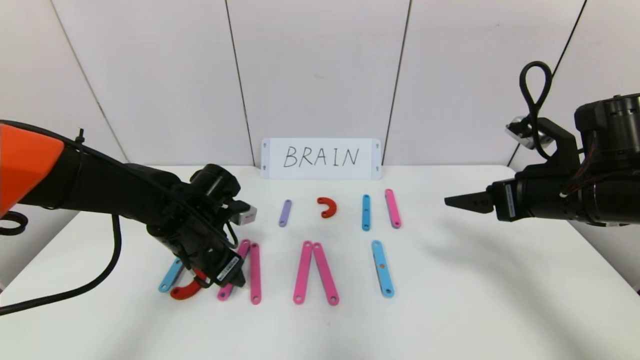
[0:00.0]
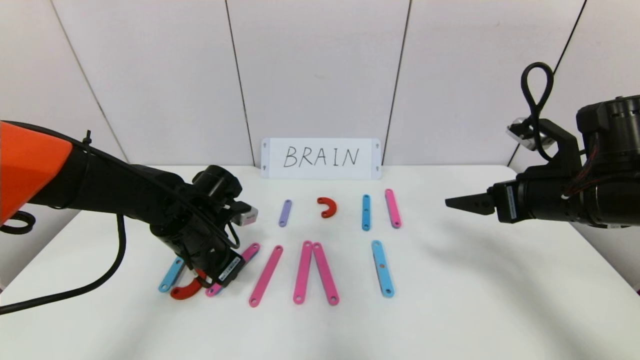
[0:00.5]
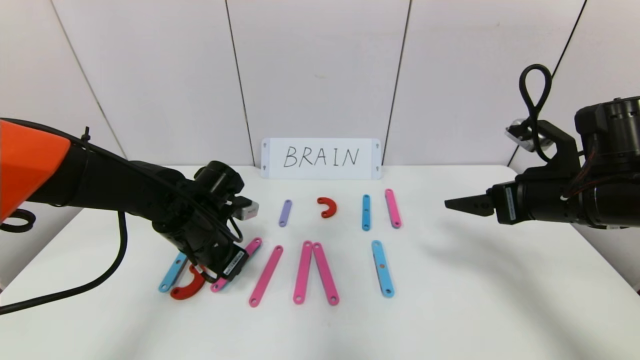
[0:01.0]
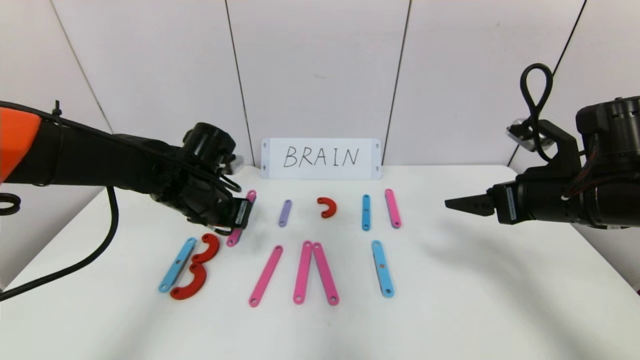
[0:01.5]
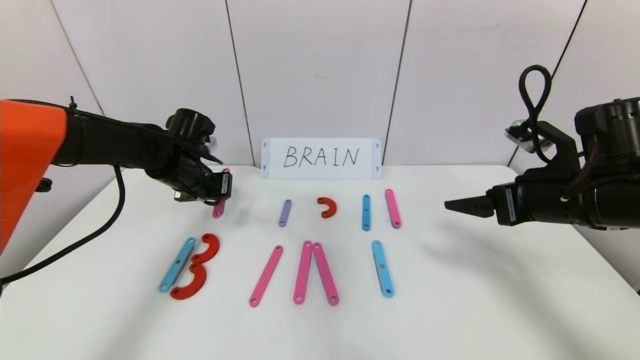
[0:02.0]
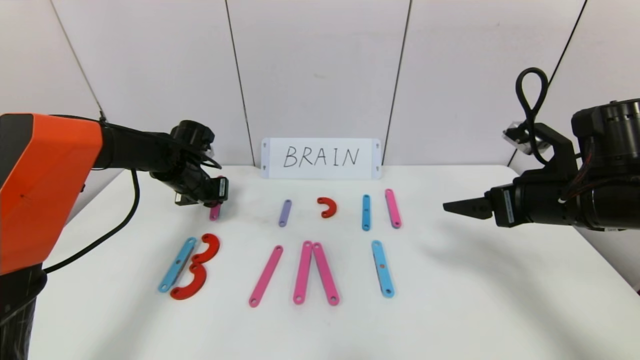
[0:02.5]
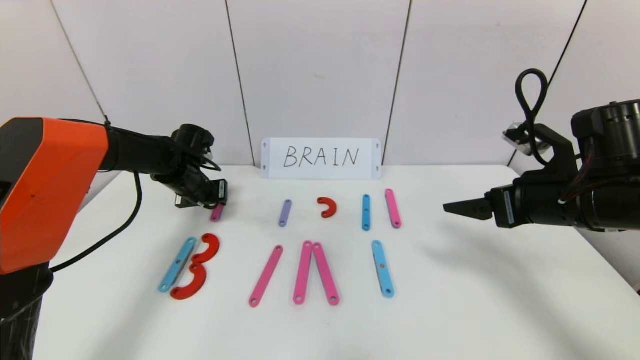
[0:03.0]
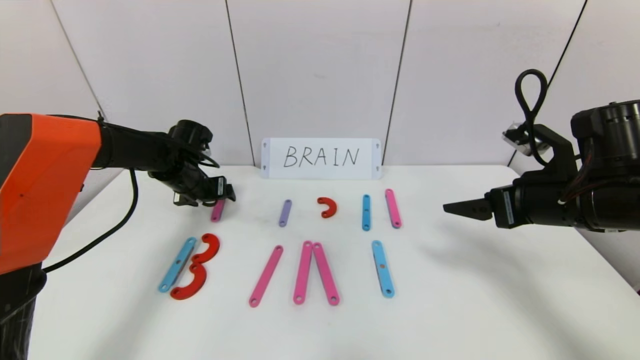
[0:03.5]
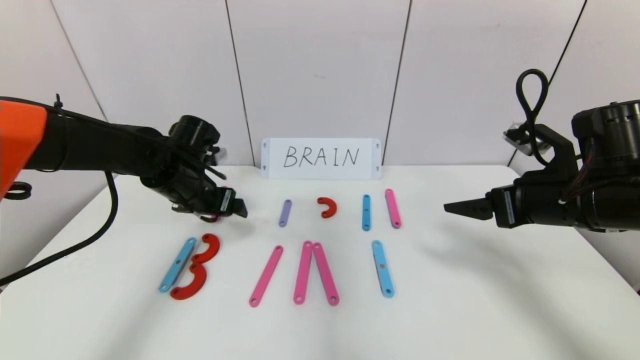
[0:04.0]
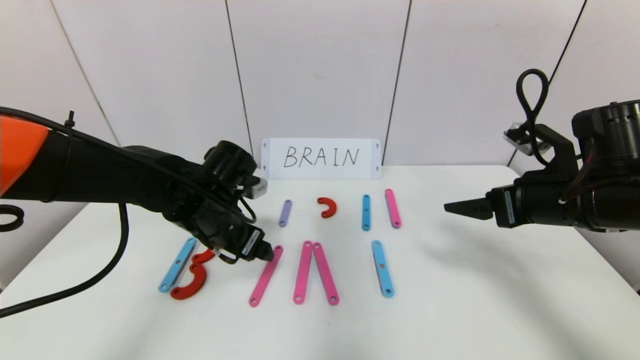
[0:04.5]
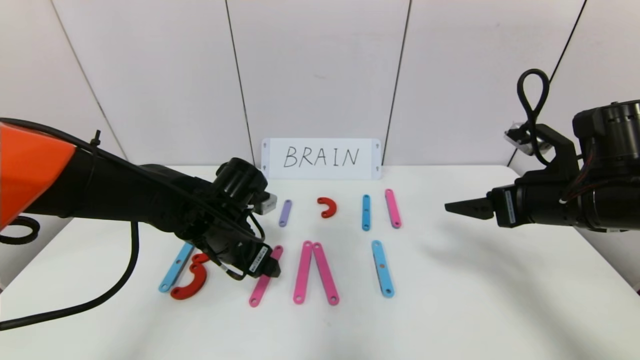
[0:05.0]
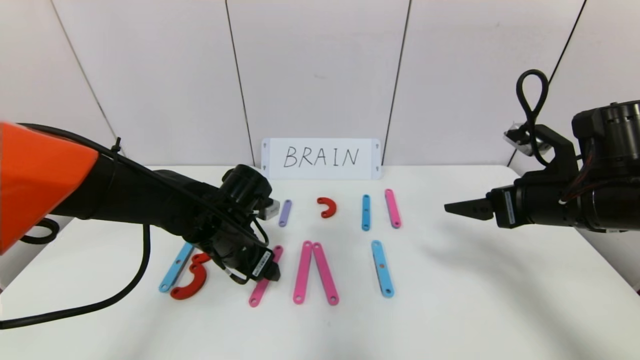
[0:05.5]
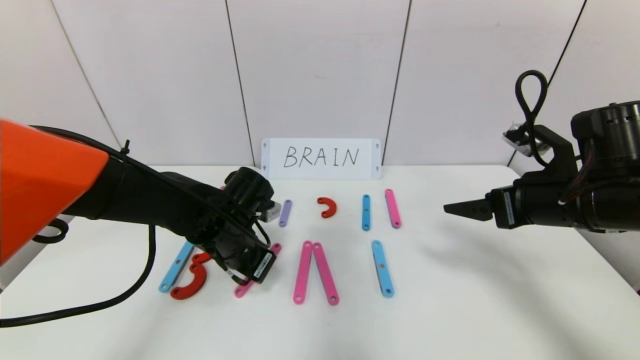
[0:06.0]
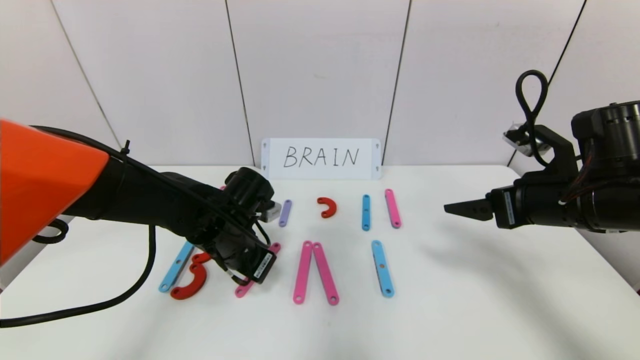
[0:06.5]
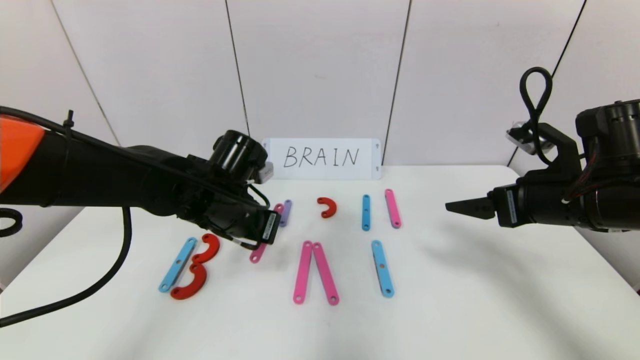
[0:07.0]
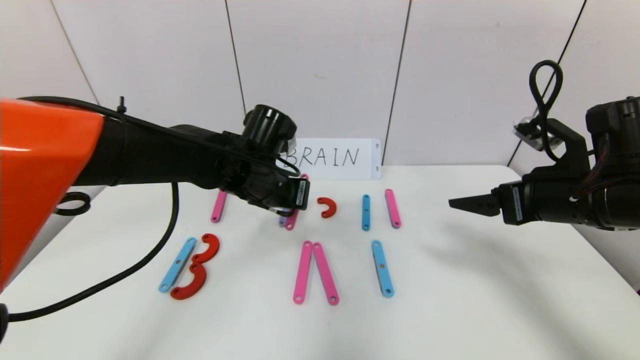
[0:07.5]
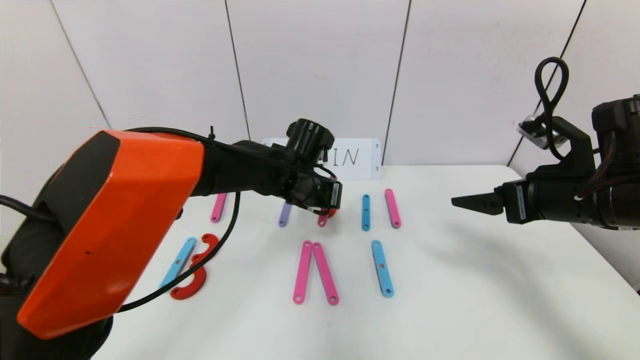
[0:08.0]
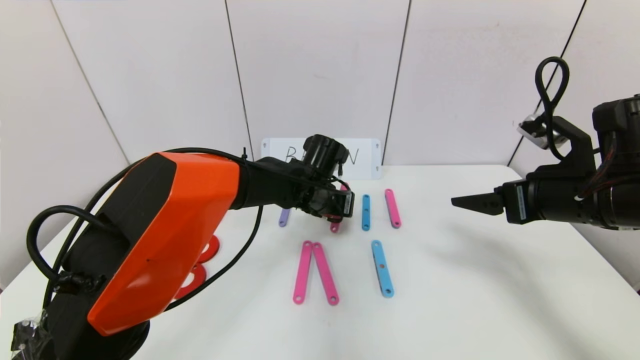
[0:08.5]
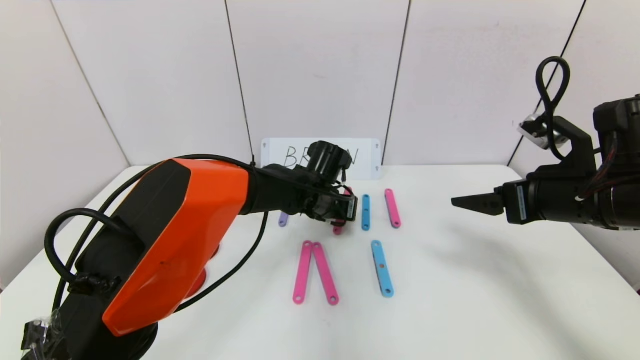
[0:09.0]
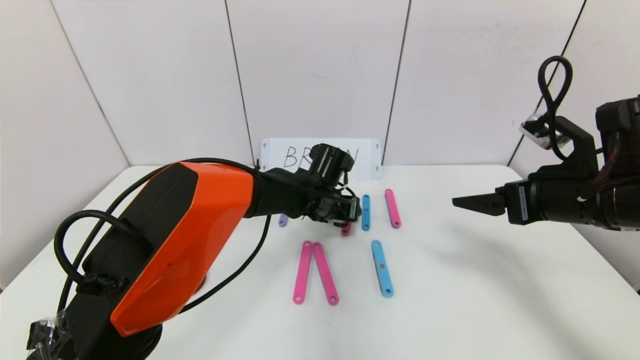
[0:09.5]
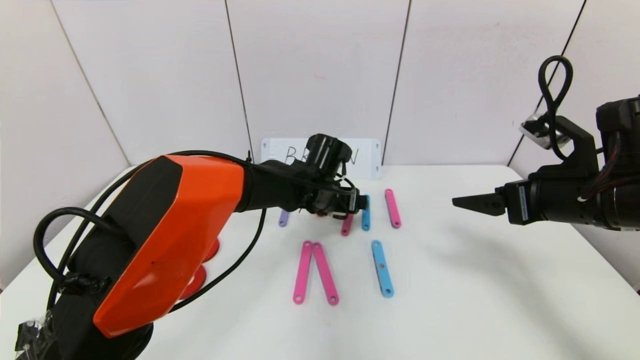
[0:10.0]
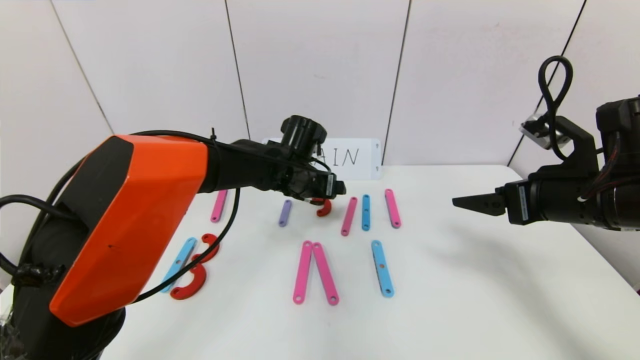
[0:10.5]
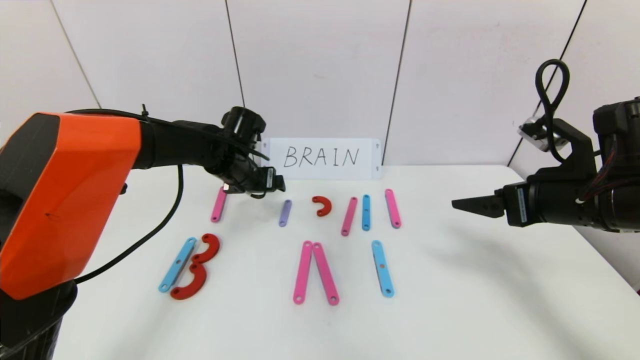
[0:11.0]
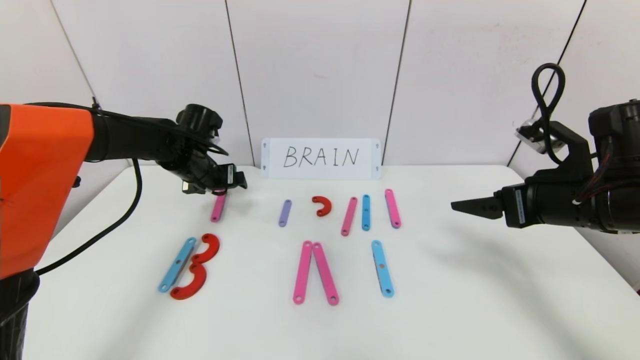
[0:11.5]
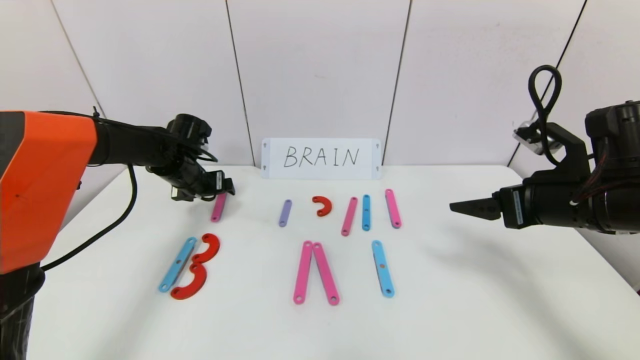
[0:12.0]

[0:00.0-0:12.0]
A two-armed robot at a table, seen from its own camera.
Task of the whole recording: rearrange the word baai as brain.
Step, 0:00.0 to 0:10.5: Disassemble the second character A.
0:00.0 to 0:02.0: The left gripper goes about 10 cm forward, and closes.
0:02.0 to 0:04.0: The left gripper changes place by approximately 5 cm, and opens up.
0:04.0 to 0:06.0: The left gripper shifts roughly 10 cm to the right, downward and backward, and closes.
0:06.0 to 0:08.0: The left gripper shifts approximately 15 cm to the right and forward.
0:08.0 to 0:10.0: The left gripper opens.
0:10.0 to 0:12.0: The left gripper is displaced to the left by approximately 25 cm.

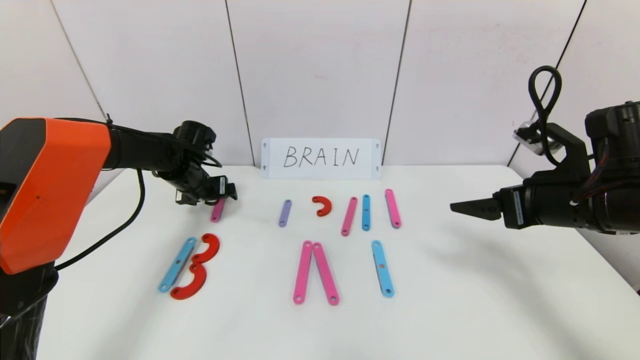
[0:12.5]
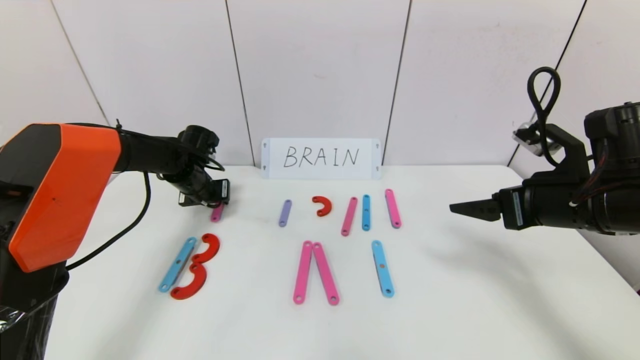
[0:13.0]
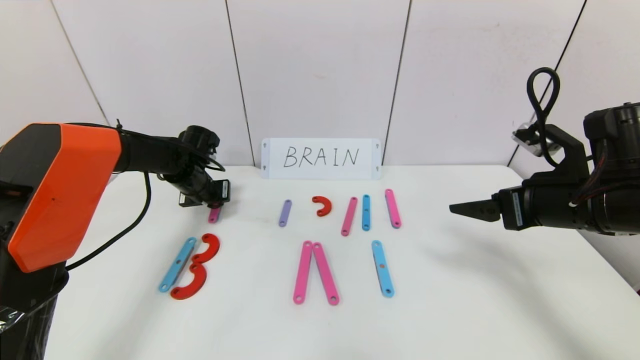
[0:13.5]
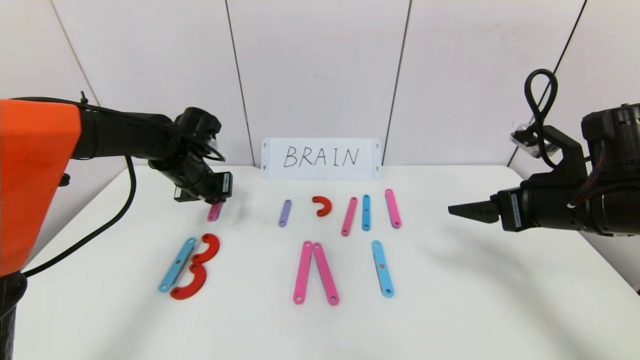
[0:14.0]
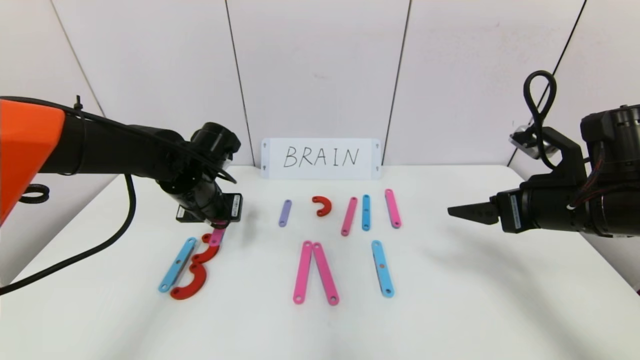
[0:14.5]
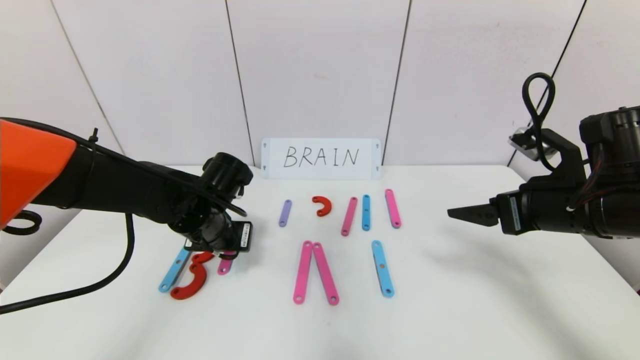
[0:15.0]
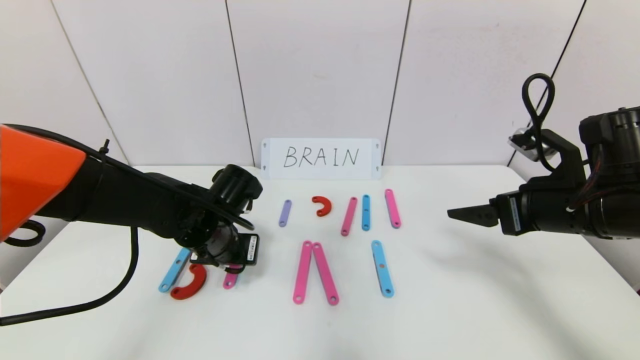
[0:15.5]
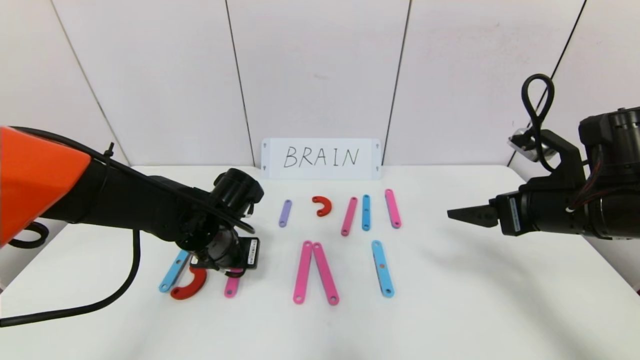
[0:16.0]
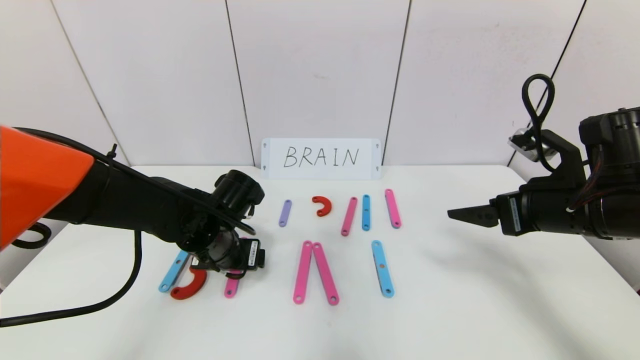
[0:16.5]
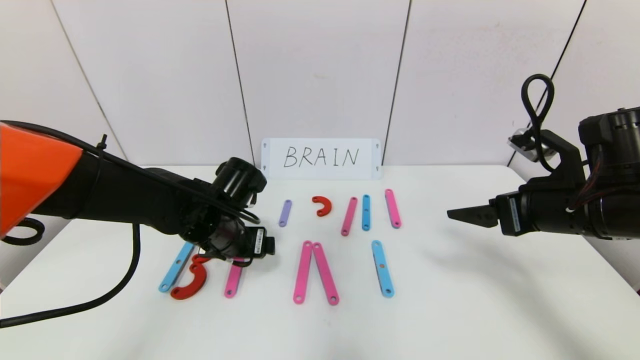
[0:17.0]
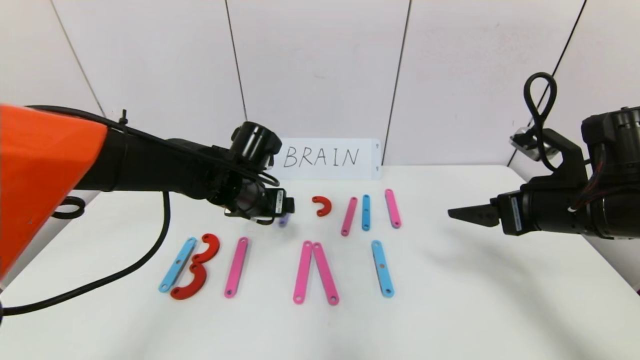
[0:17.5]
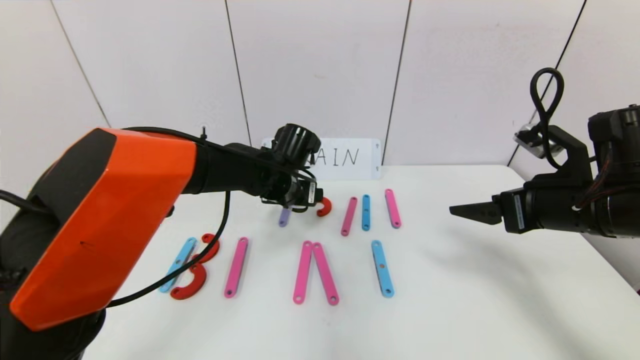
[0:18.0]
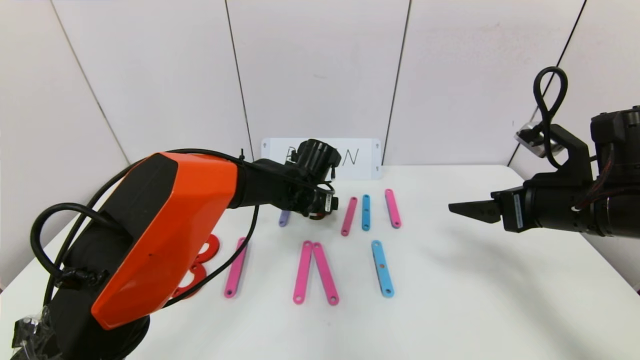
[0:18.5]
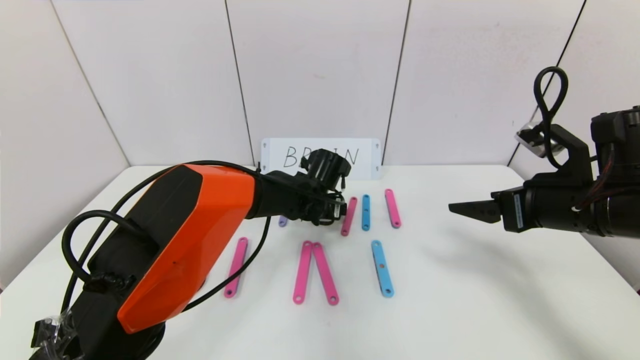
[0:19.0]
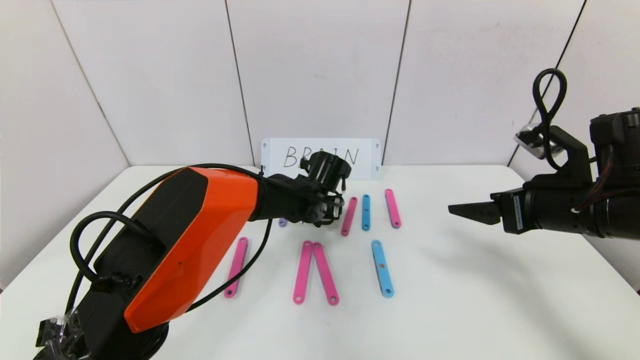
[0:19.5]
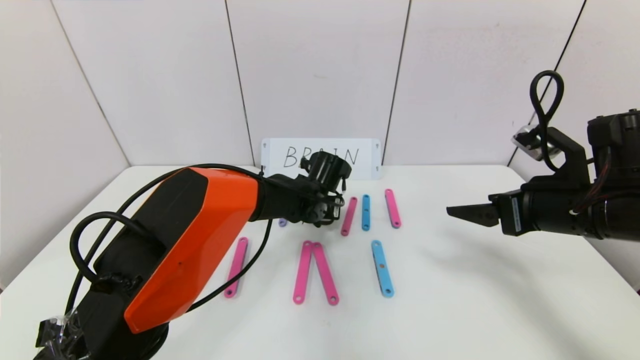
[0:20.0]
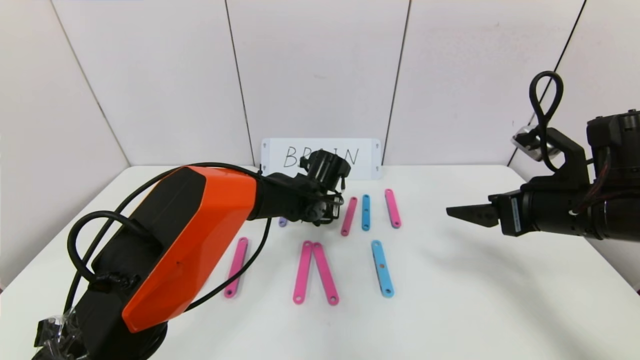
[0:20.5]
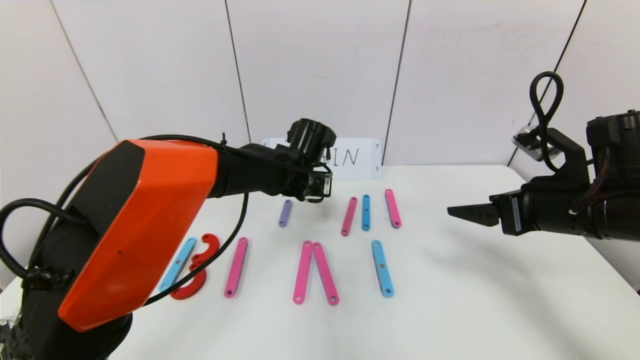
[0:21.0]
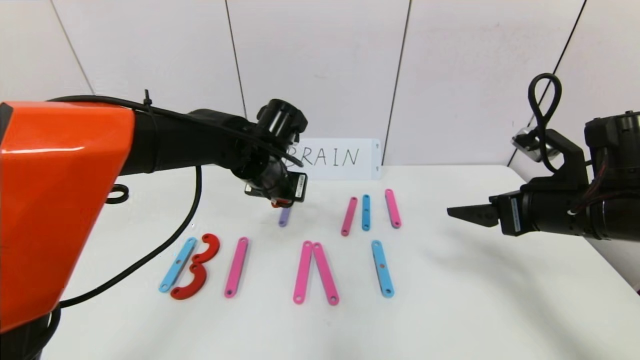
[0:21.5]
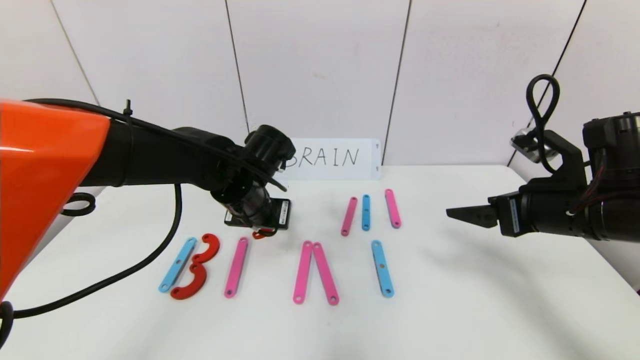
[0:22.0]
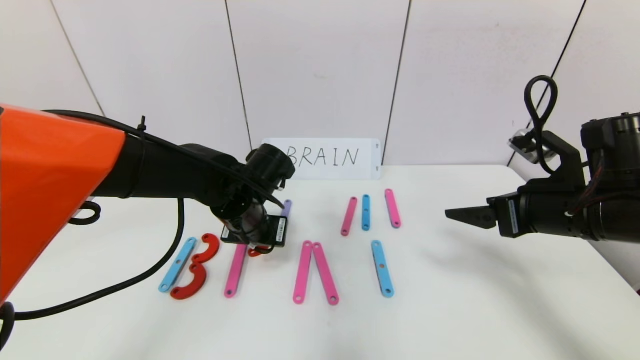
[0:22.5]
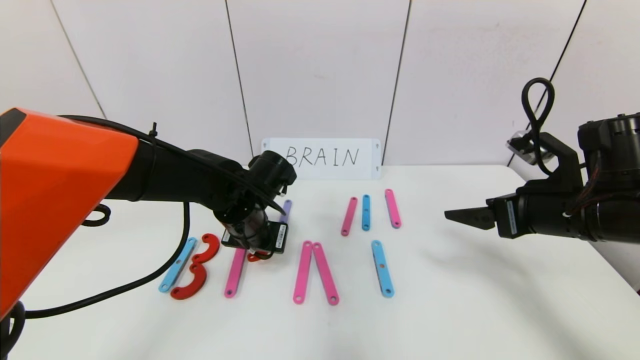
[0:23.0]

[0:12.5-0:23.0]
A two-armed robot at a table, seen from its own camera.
Task of the whole recording: rearrange the word baai as brain.
0:12.5 to 0:14.5: The left gripper shifts approximately 10 cm backward and to the right, and closes up.
0:14.5 to 0:16.5: The left gripper travels backward by approximately 5 cm, and opens up.
0:16.5 to 0:19.0: The left gripper travels to the right and forward by some 20 cm.
0:19.0 to 0:21.0: The left gripper moves upward, roughly 5 cm, and closes.
0:21.0 to 0:23.0: The left gripper is displaced backward and to the left by some 10 cm.
